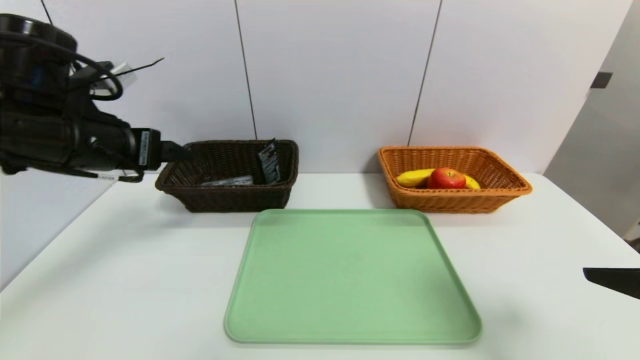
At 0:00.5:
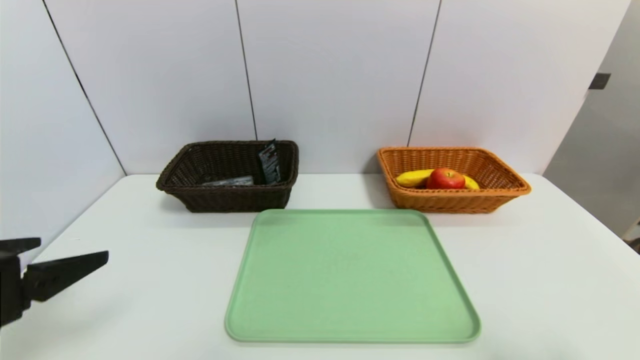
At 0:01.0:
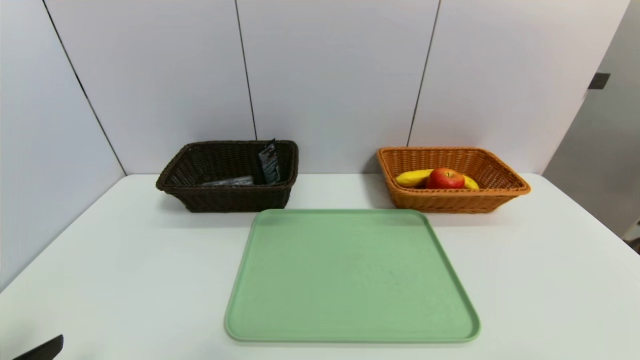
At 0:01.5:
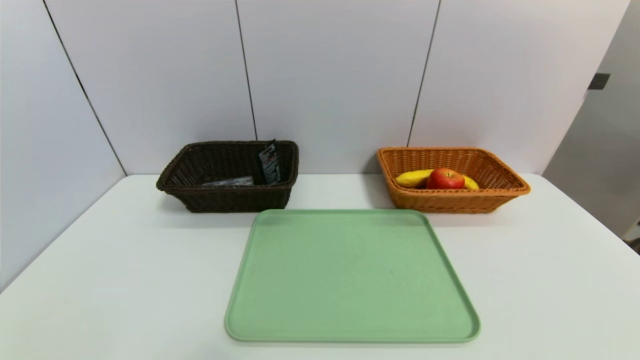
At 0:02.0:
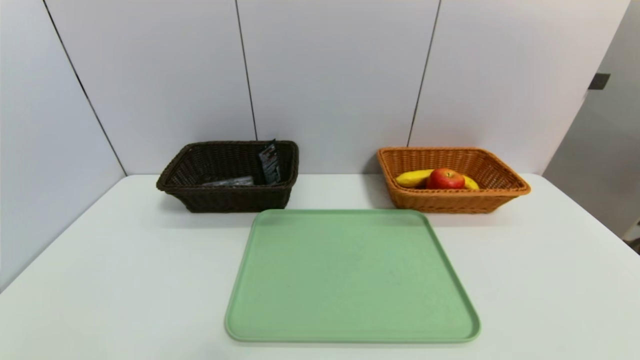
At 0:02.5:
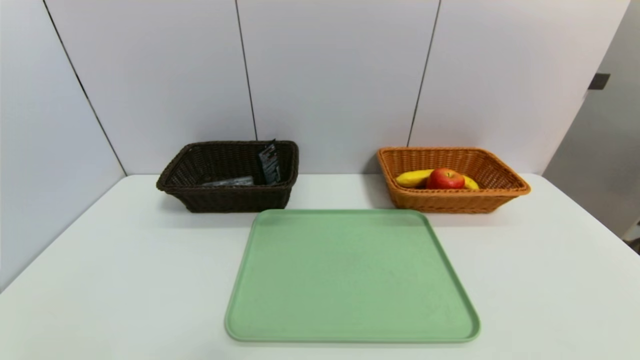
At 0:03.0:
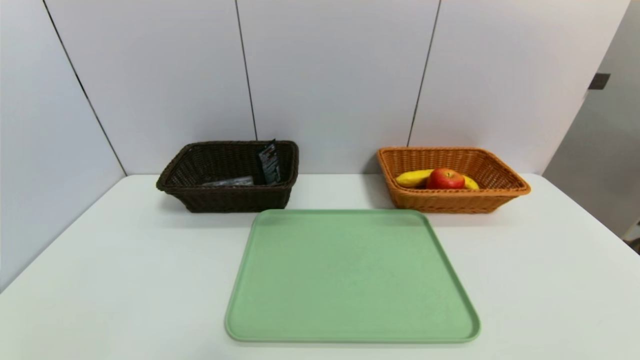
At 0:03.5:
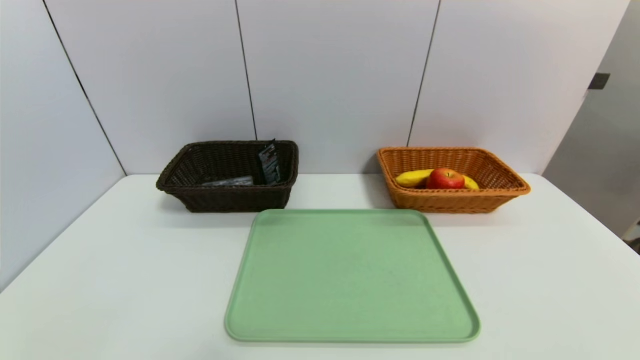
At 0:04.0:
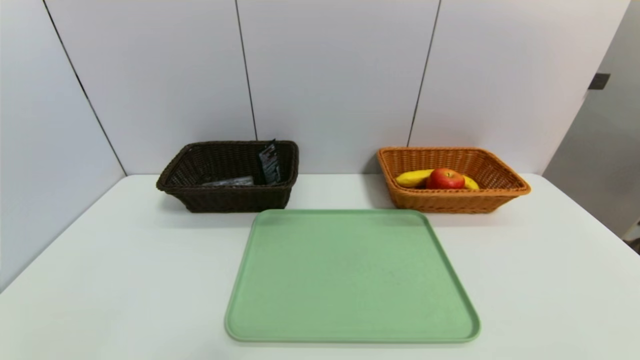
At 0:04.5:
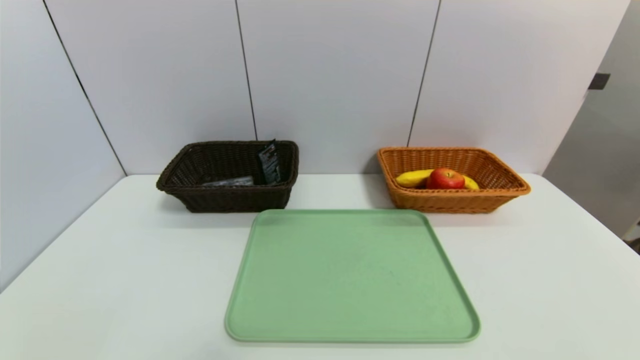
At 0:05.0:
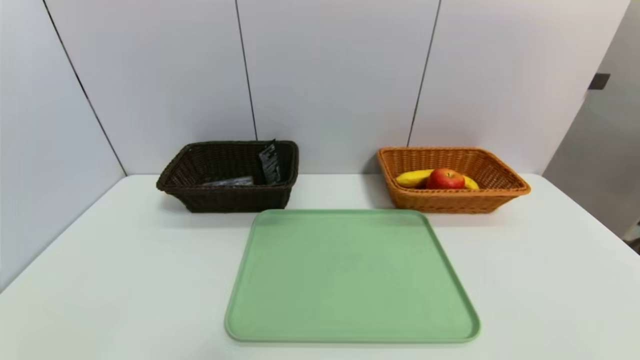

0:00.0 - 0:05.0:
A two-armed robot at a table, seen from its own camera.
Task of the whole recording: place the food in the right basket with the right gripper, and place the non food items in the left basket with the left gripper.
0:00.0 - 0:02.5: The left gripper goes some 35 cm backward and downward. Meanwhile the right gripper travels downward and backward by about 20 cm.

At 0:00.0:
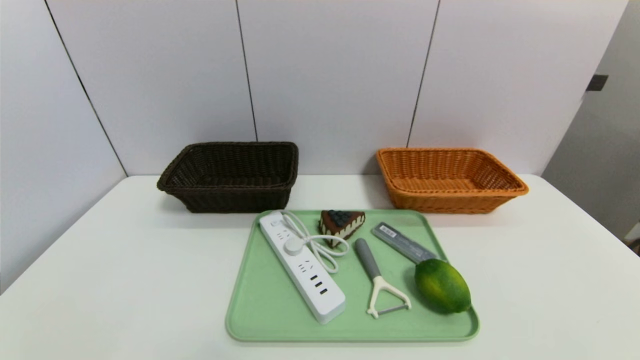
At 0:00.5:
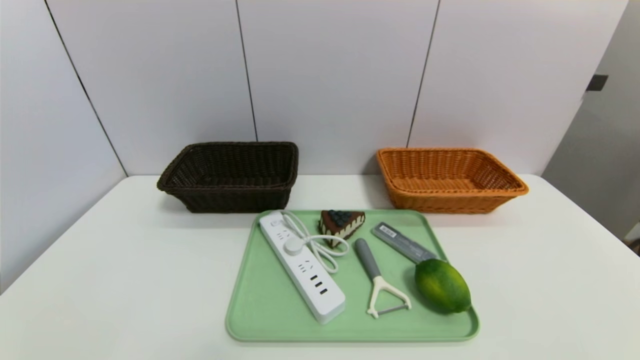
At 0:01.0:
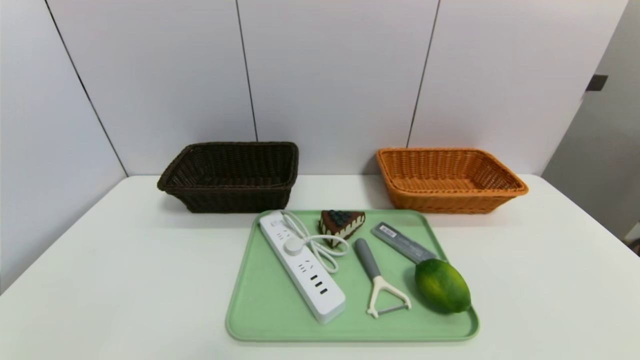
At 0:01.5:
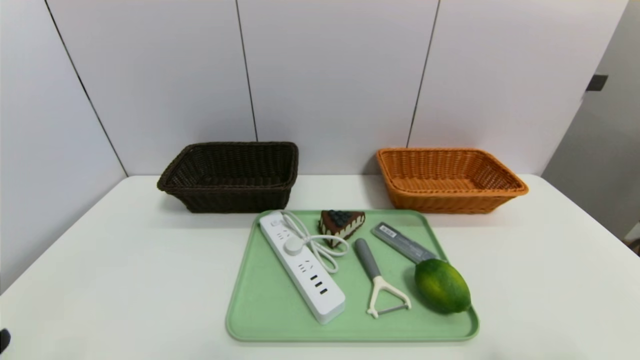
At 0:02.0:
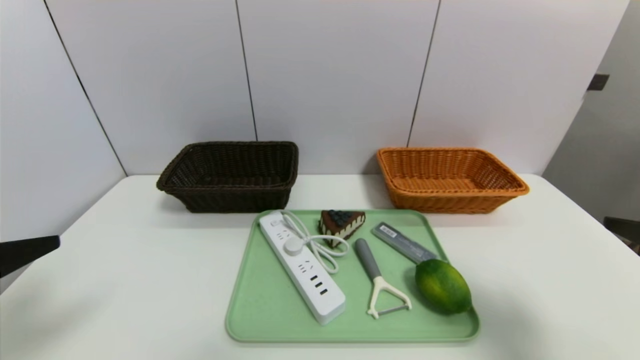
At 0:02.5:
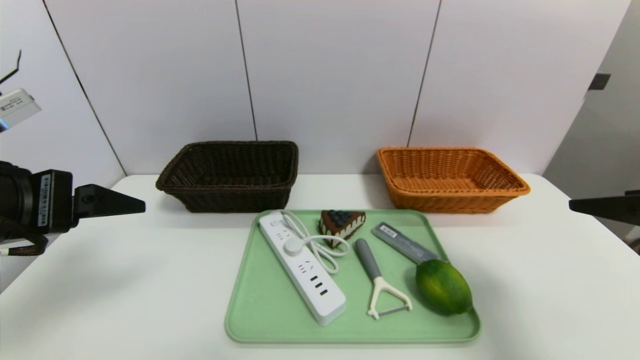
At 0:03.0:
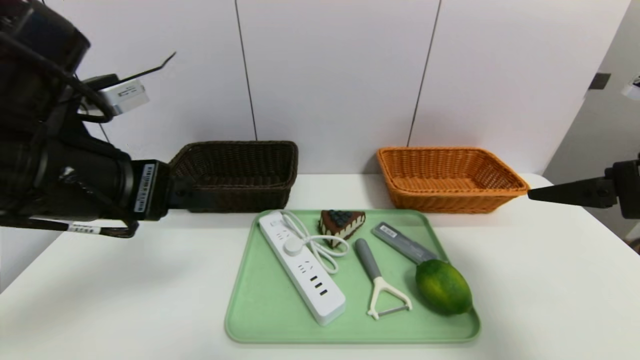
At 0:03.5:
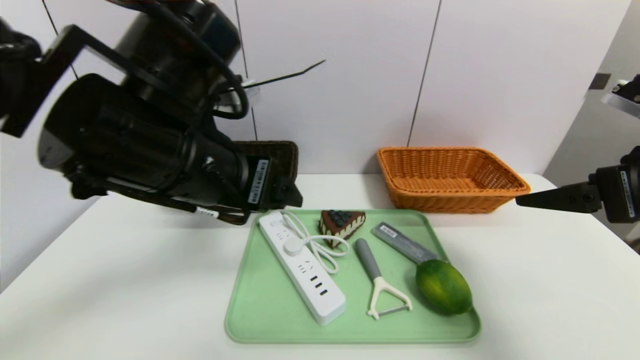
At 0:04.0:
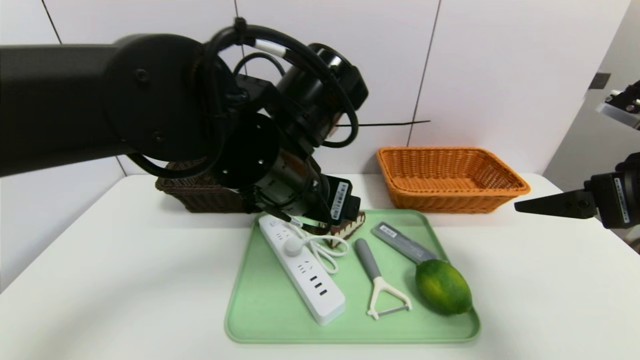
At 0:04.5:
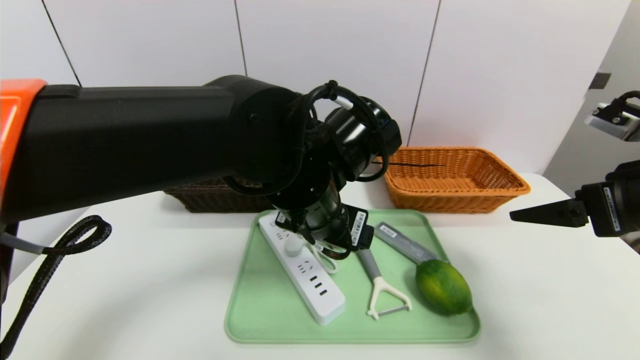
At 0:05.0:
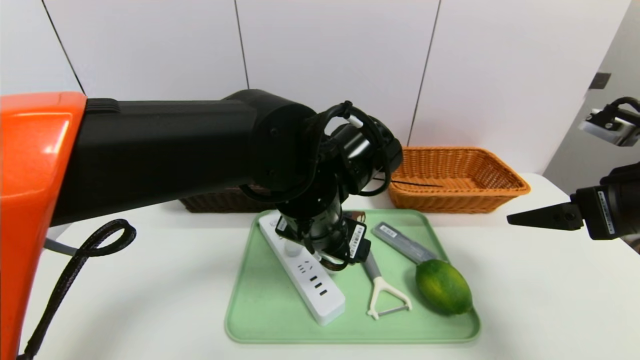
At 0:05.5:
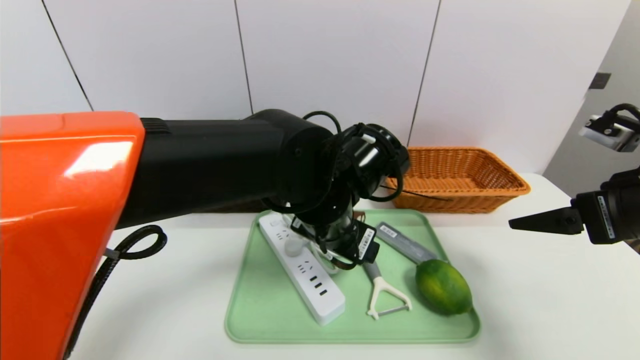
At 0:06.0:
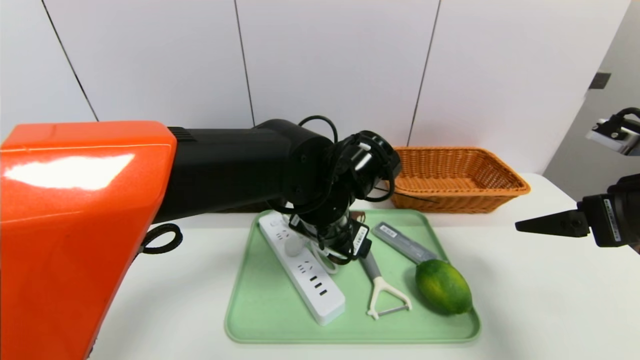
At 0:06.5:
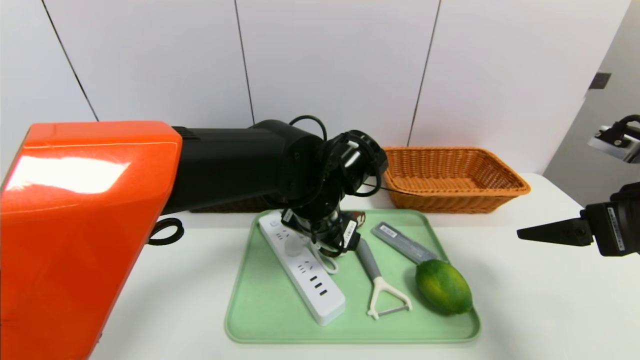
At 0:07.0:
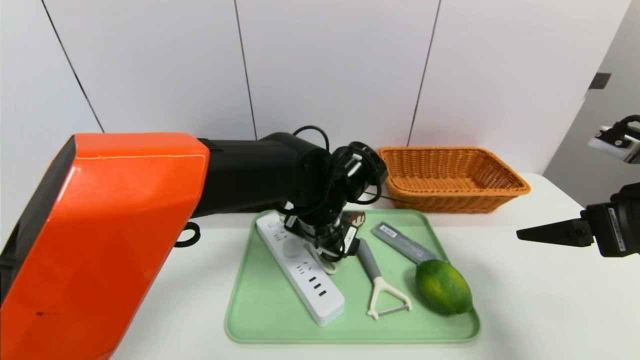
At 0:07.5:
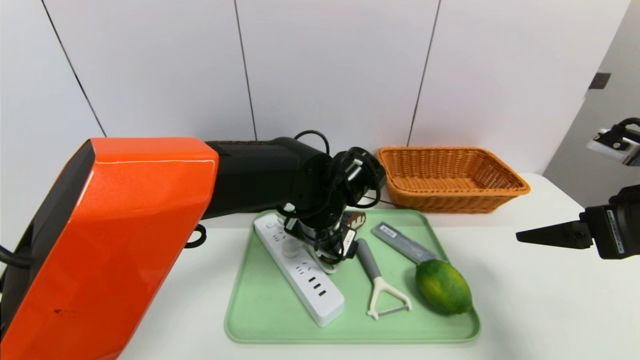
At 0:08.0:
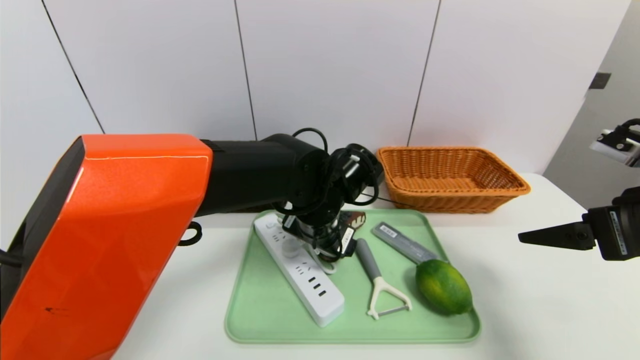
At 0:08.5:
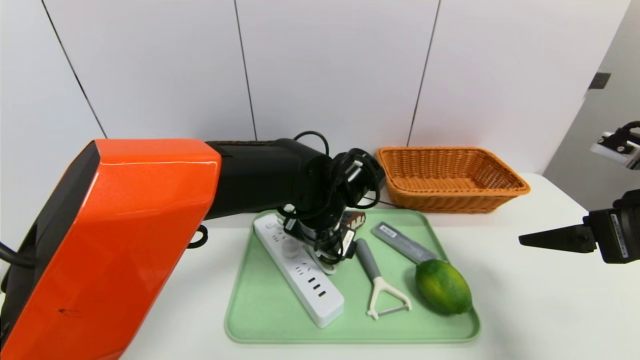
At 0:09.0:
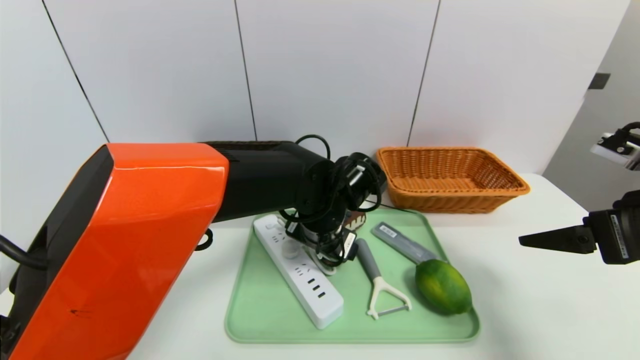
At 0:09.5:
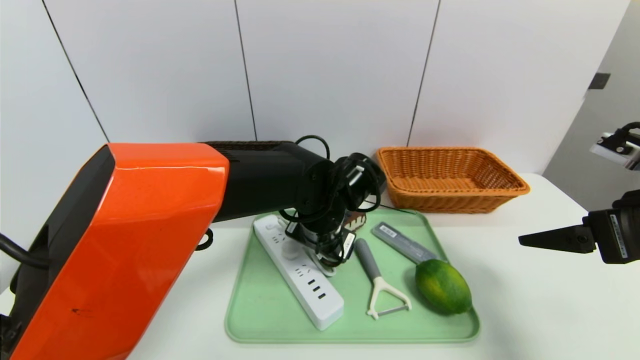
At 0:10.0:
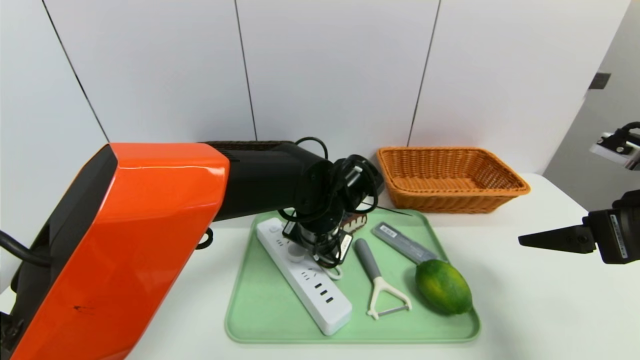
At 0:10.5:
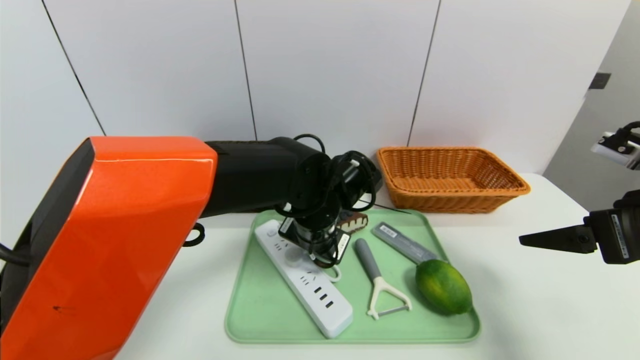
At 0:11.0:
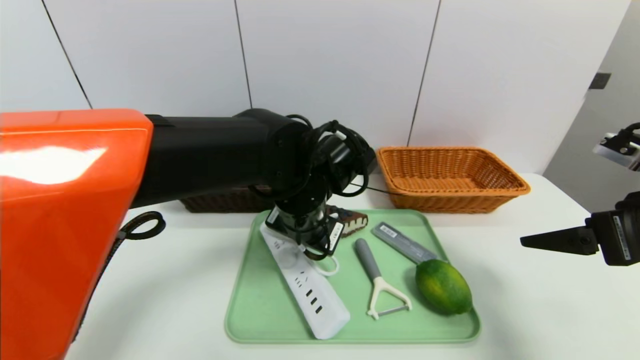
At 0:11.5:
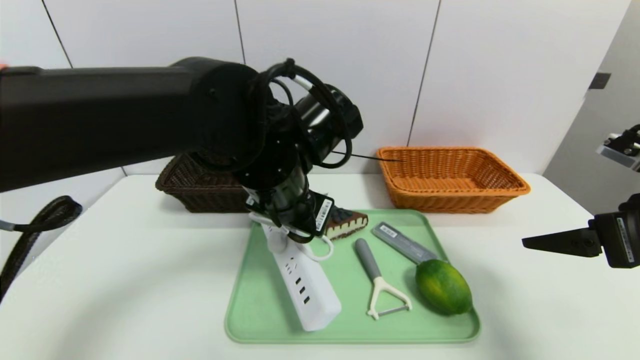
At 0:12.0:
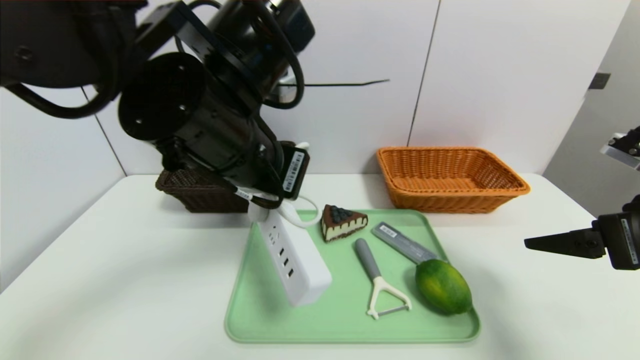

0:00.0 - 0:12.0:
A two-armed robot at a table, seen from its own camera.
Task of the whole recording: place the food in the right basket with the right gripper, and place the non food items in the left basket with the left gripper.
0:00.0 - 0:02.0: Both grippers travel together upward and forward, roughly 20 cm.
0:02.0 - 0:04.0: The left gripper heads to the right and forward, covering roughly 30 cm. The right gripper goes about 10 cm forward.
0:04.0 - 0:06.0: The left gripper shifts roughly 5 cm downward.
0:06.0 - 0:08.0: The grippers stay close to where they were, moving slightly.
0:08.0 - 0:10.0: The left gripper closes.
0:10.0 - 0:12.0: The left gripper travels upward, to the left and backward by some 20 cm.

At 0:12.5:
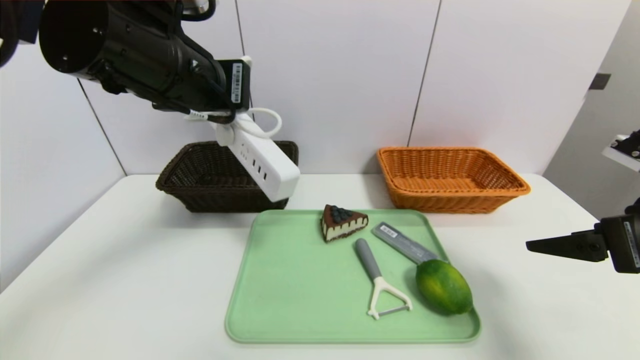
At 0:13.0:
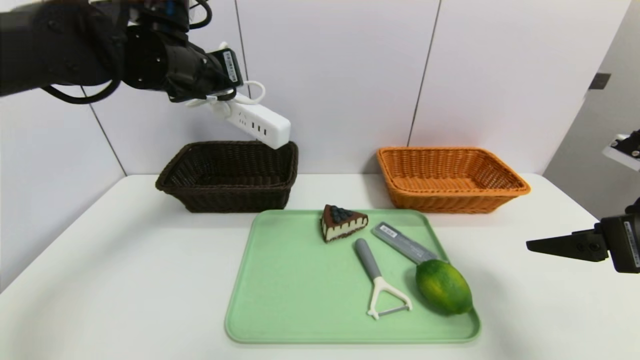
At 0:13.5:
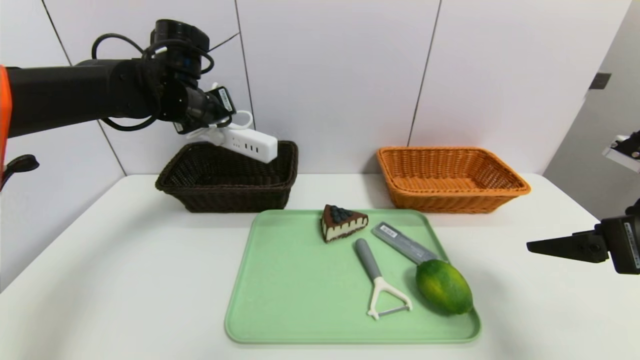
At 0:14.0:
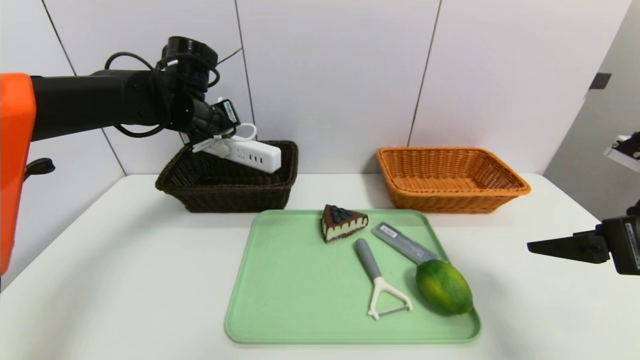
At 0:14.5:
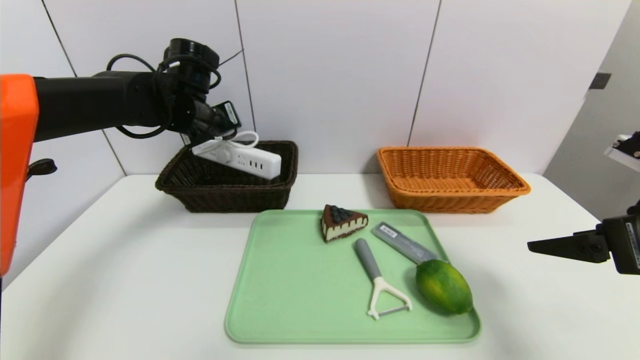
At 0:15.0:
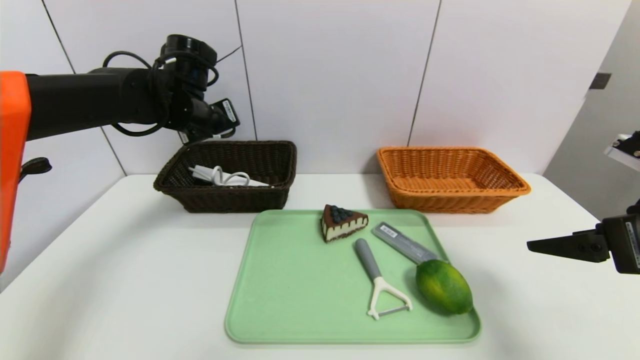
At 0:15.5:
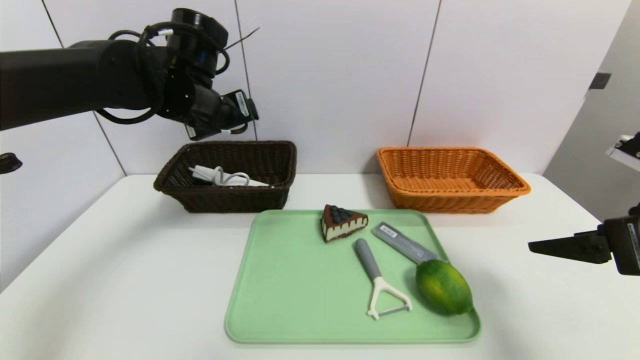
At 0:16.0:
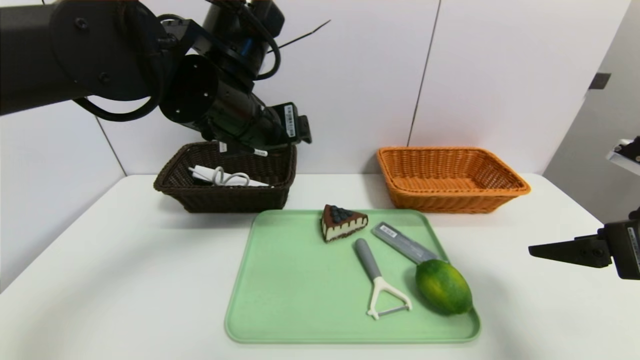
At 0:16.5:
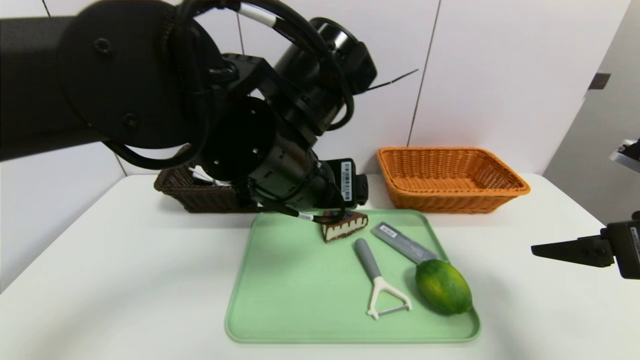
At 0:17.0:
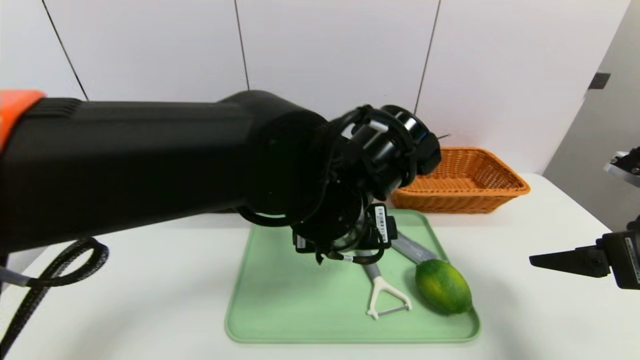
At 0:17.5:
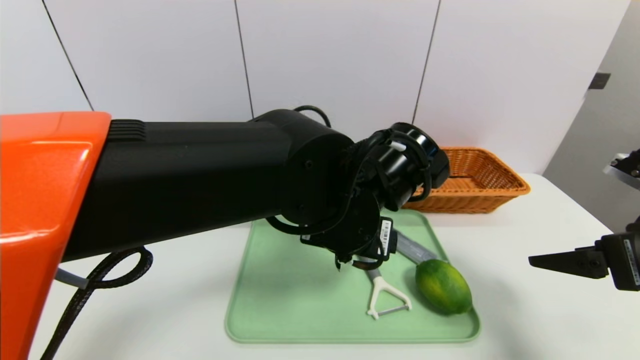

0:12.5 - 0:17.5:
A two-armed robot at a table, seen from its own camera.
Task of the whole recording: place the food in the right basket with the right gripper, and place the non food items in the left basket with the left gripper.
Step, 0:12.5 - 0:15.0: Grasp the power strip and put it in the left basket.
0:12.5 - 0:15.0: The left gripper travels forward and downward by some 15 cm, and opens up.
0:15.0 - 0:17.5: The left gripper travels to the right and backward by about 30 cm.
